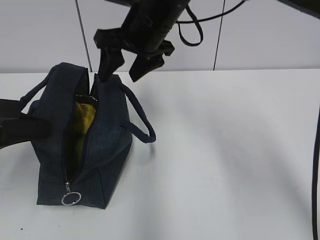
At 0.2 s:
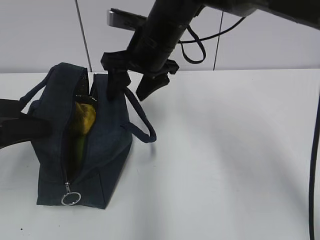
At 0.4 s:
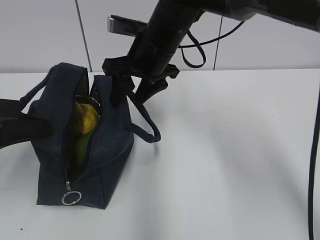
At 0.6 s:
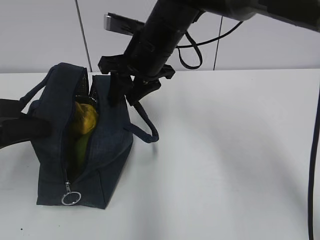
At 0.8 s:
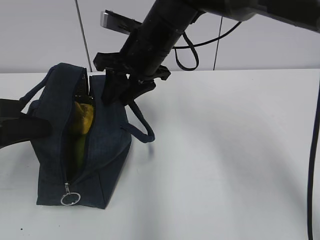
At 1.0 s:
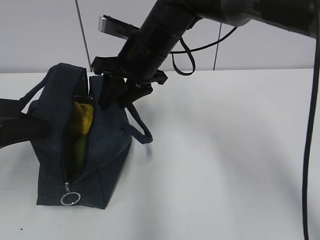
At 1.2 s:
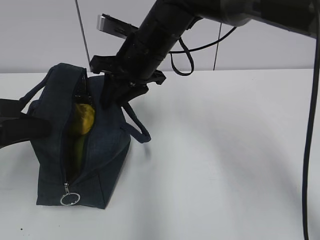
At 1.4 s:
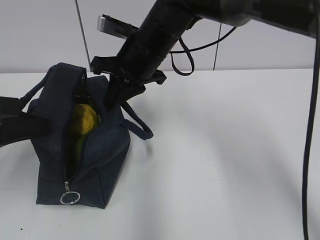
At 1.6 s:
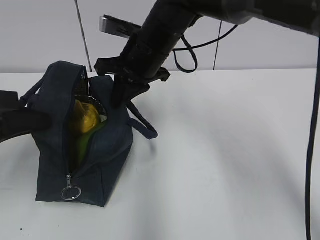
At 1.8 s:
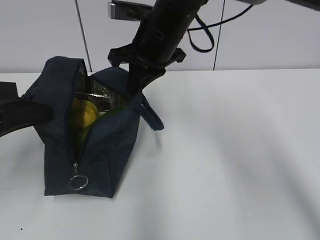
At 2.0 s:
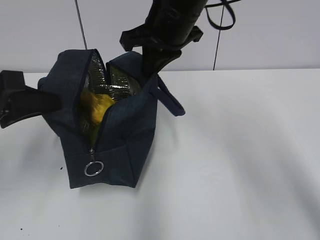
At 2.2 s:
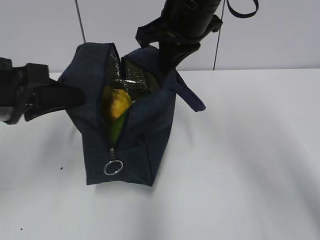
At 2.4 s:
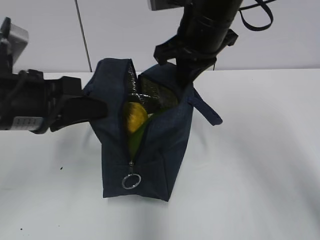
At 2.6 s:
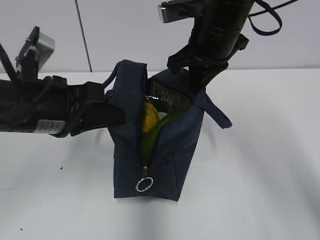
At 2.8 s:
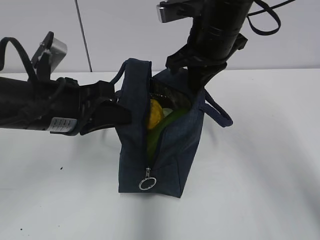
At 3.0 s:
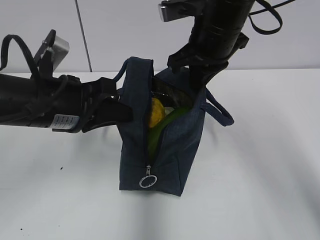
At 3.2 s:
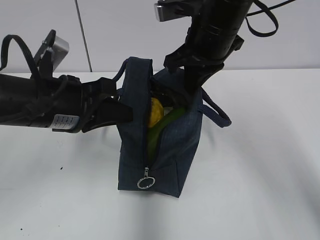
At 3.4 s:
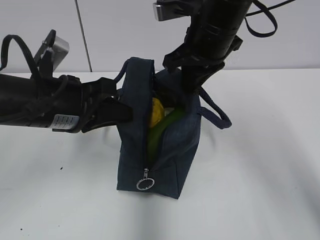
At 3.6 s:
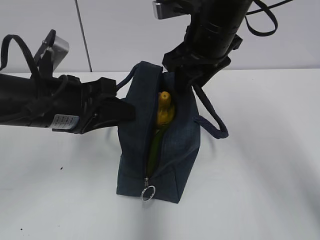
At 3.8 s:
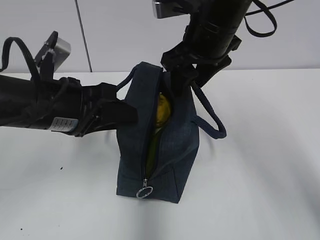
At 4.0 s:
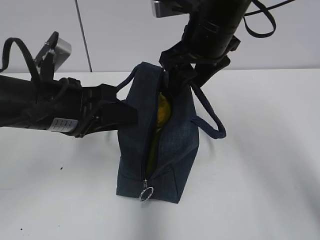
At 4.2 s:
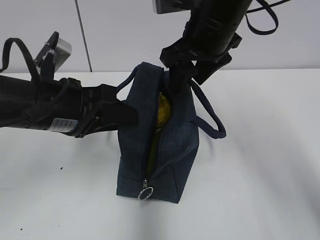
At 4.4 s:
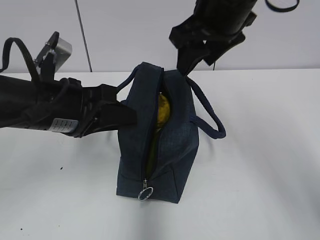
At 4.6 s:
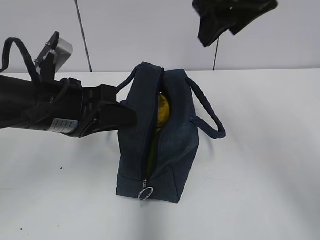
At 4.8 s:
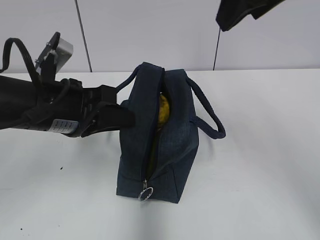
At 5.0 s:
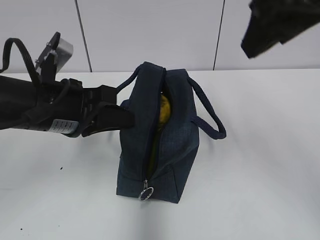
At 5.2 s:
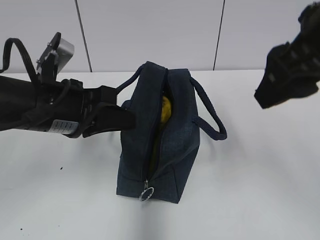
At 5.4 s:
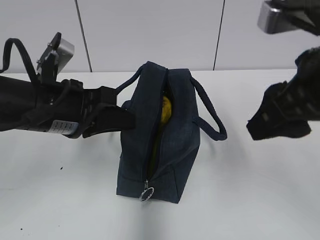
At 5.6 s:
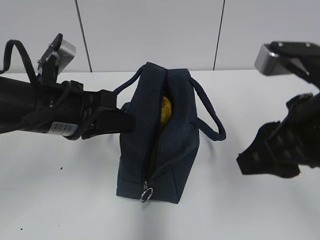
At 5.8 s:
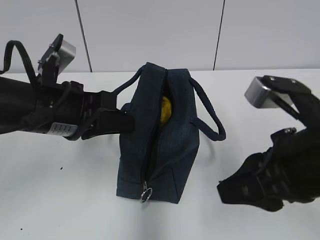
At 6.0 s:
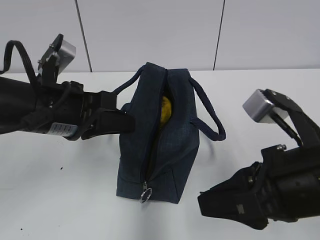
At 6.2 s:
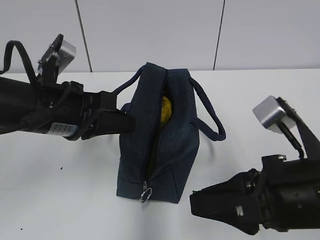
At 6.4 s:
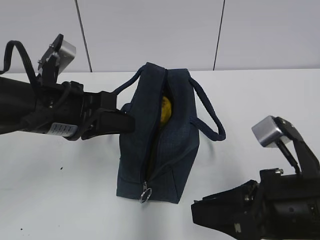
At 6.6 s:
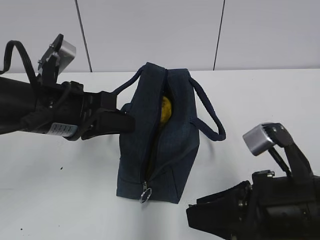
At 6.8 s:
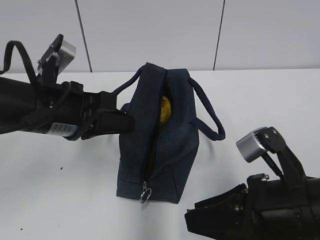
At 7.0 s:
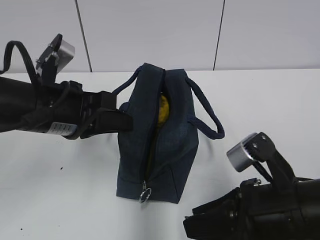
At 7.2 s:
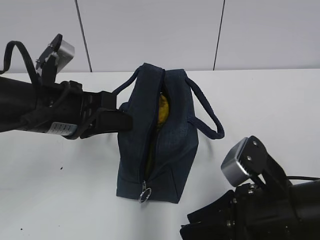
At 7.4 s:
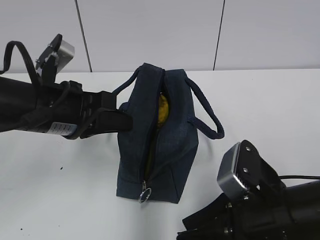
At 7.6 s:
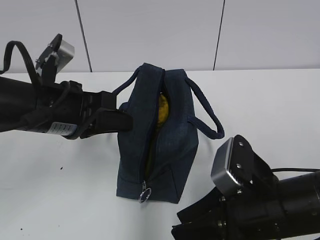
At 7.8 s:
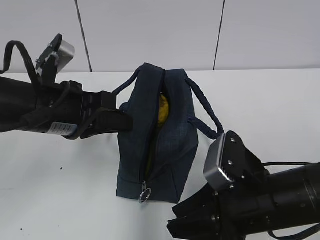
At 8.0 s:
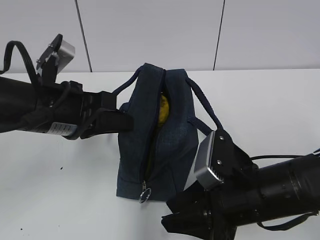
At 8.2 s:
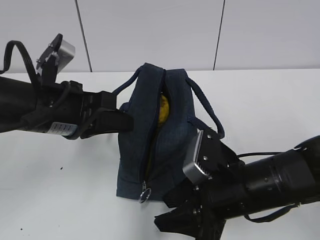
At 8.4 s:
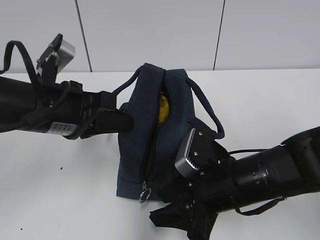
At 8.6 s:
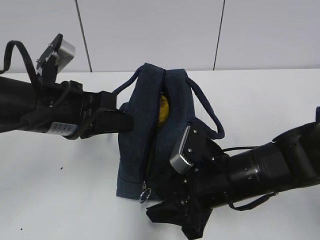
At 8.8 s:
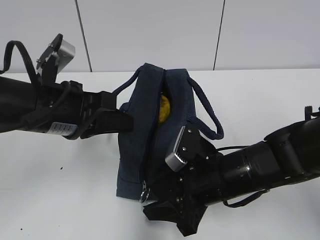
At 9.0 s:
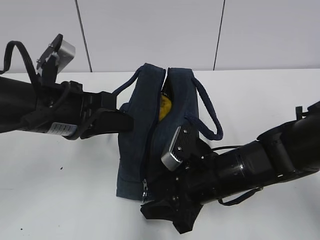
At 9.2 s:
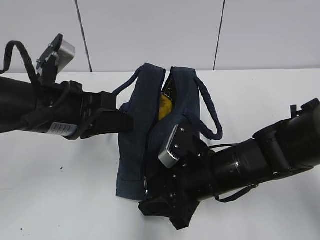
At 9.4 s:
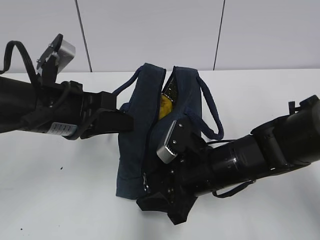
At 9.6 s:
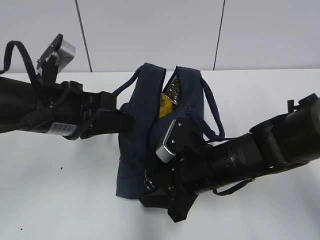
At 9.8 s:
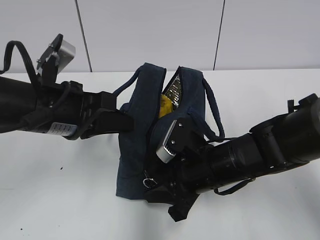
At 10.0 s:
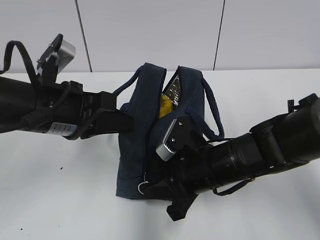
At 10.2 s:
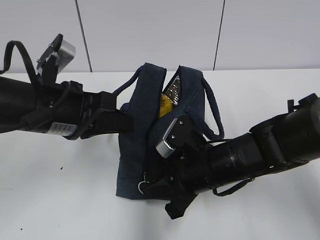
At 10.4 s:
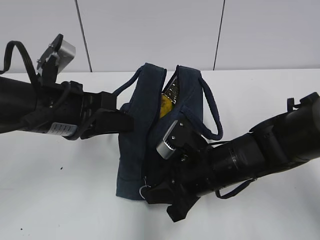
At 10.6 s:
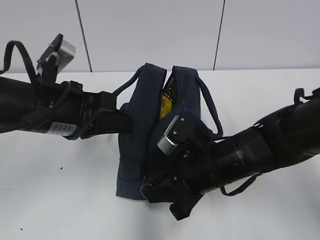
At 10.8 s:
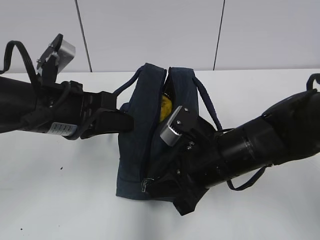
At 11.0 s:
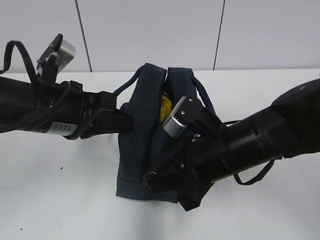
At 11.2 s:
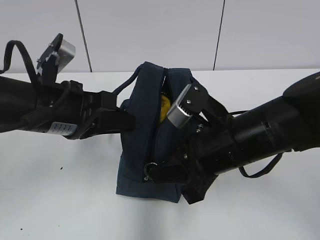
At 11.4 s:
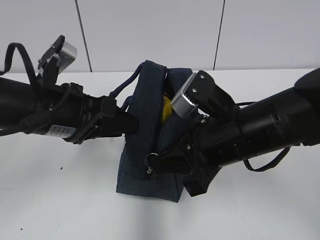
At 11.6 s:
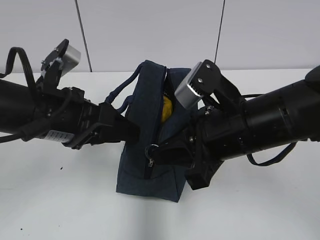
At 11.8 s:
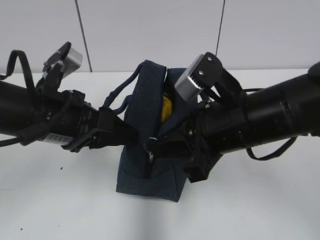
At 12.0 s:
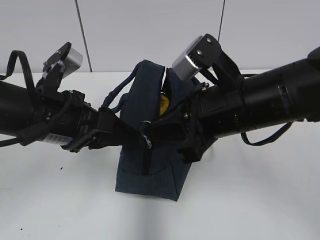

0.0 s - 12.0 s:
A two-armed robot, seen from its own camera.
0.0 s - 1.6 s: The right gripper closes up.
1.6 s - 3.0 s: The two grippers go approximately 10 cm to the right.
3.0 s - 4.4 s: The left gripper opens. Meanwhile the right gripper moves roughly 5 cm, and opens its fingers.
4.4 s - 6.0 s: The right gripper is displaced backward and downward by approximately 20 cm, and closes. Meanwhile the left gripper closes.
6.0 s - 7.6 s: The right gripper shifts approximately 10 cm downward.
7.6 s - 9.0 s: The right gripper is displaced forward by approximately 10 cm.
9.0 s - 10.4 s: The right gripper closes its fingers.
10.4 s - 12.0 s: The left gripper opens its fingers; the right gripper is displaced upward by approximately 15 cm.

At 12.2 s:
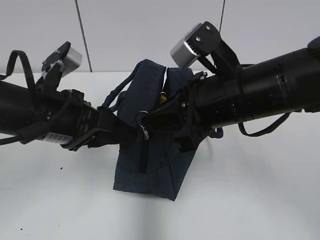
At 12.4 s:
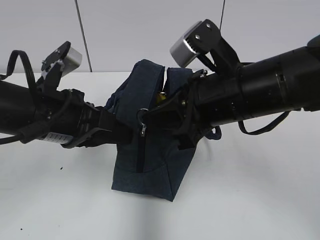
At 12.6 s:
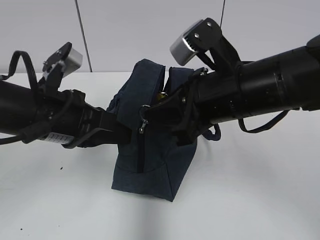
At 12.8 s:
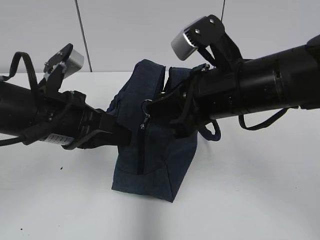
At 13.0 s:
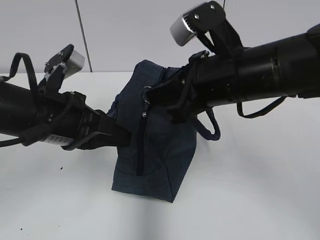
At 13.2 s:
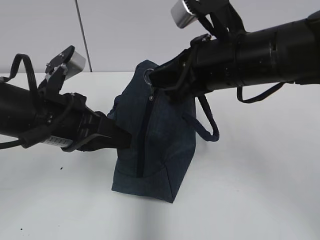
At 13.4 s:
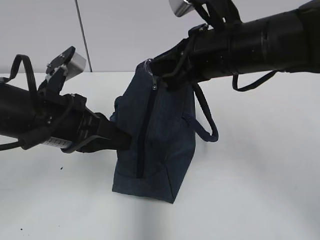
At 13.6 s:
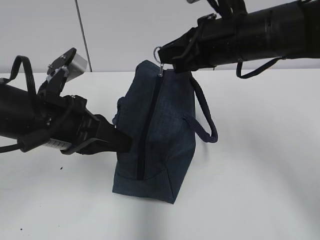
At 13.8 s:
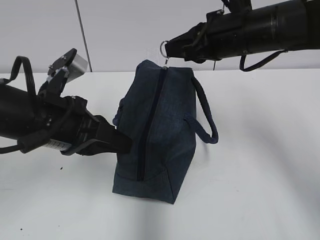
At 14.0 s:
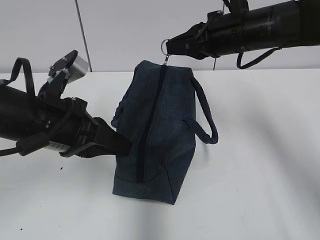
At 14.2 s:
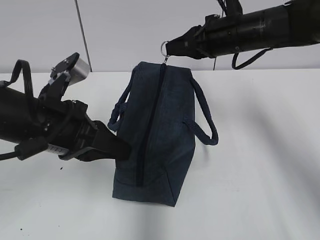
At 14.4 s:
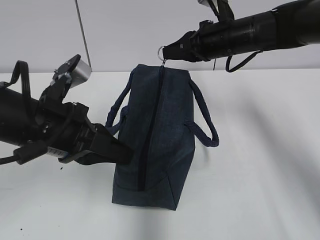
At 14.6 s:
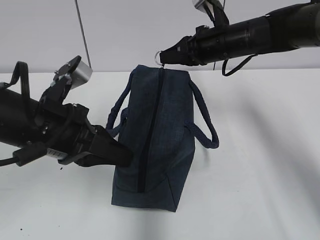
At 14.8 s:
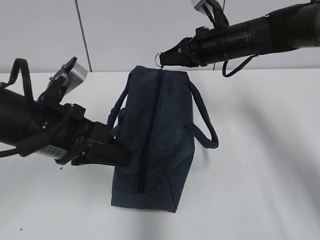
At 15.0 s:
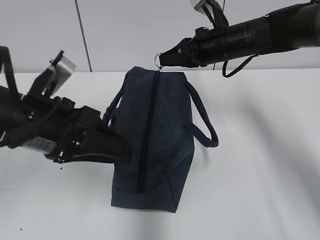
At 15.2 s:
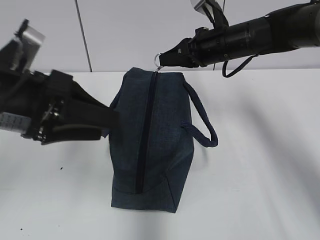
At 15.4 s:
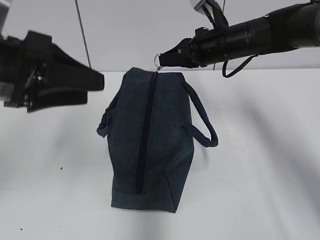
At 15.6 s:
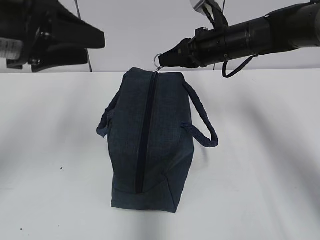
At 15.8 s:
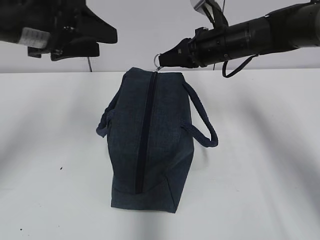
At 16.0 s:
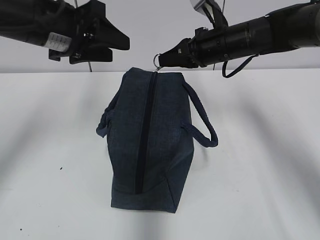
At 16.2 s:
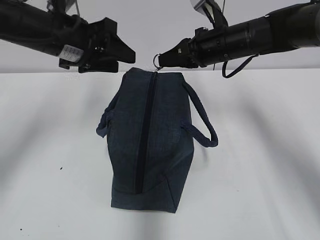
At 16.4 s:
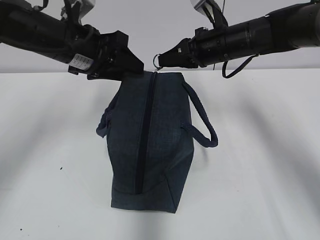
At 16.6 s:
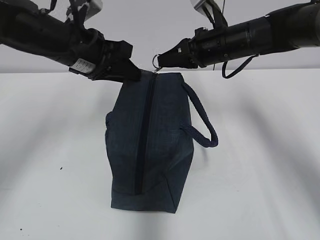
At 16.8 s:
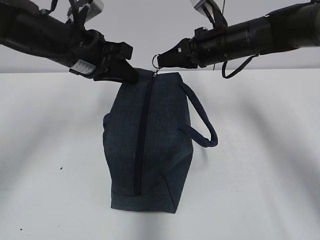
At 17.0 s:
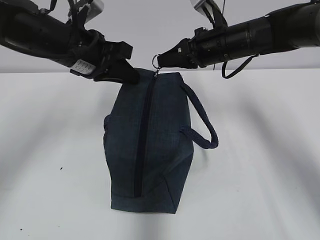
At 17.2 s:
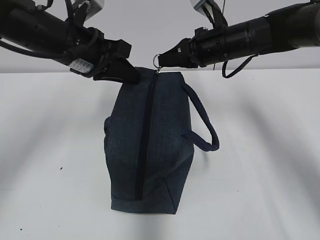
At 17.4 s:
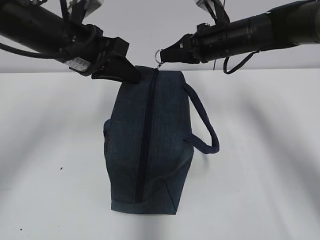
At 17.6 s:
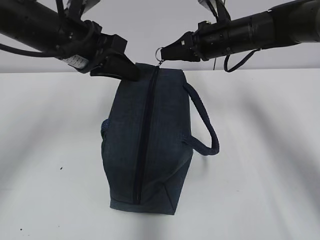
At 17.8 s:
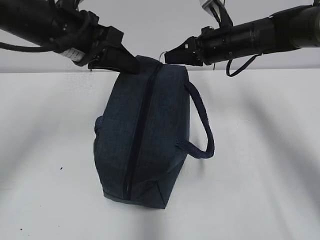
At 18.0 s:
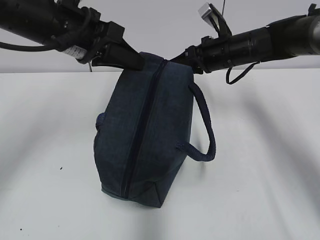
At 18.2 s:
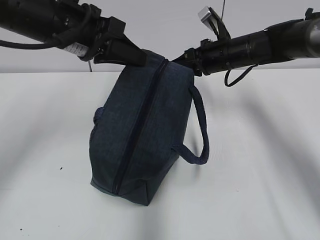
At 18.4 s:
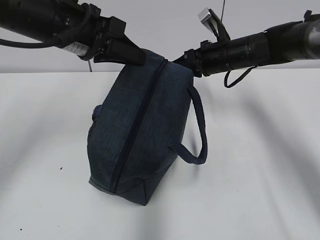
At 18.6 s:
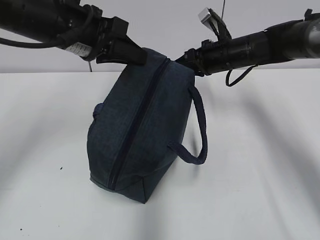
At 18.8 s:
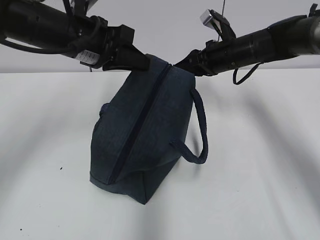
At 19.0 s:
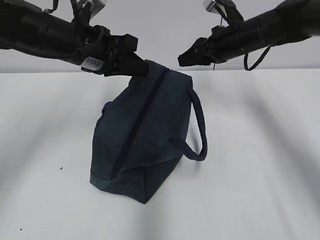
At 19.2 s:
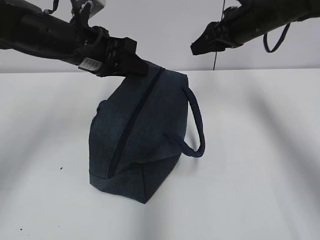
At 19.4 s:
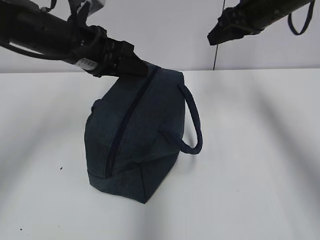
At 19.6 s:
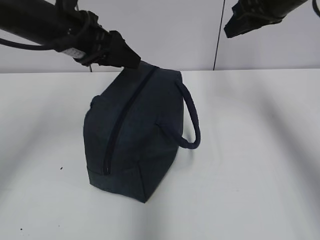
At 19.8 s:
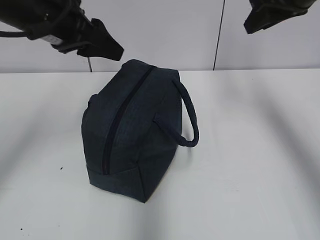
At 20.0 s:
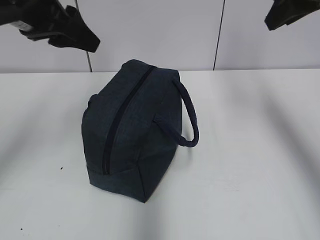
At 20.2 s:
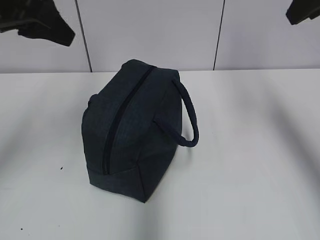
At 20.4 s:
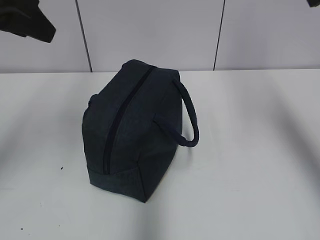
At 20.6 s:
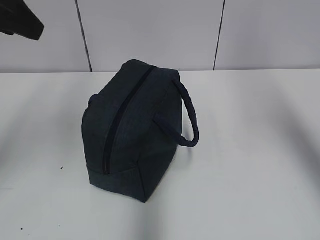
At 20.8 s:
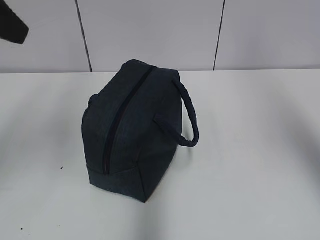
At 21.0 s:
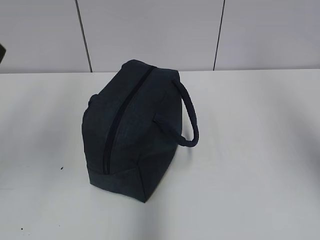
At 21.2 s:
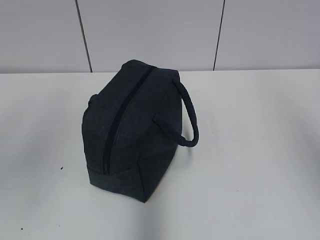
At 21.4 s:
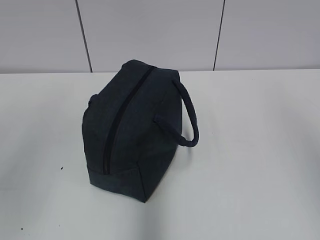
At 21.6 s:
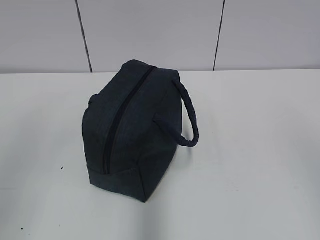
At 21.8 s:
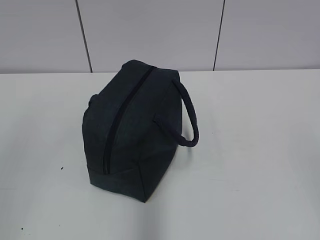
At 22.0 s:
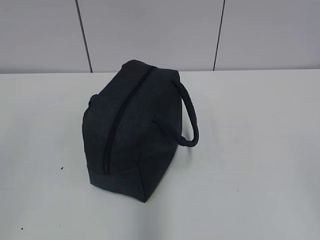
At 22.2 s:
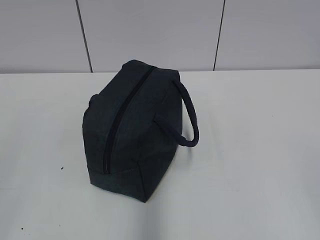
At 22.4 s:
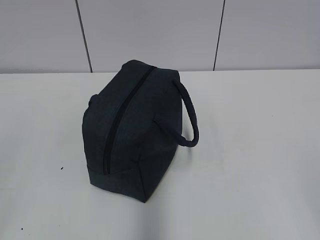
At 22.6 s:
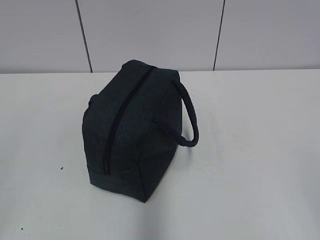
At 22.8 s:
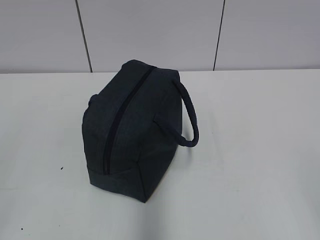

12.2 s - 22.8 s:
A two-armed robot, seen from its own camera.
12.2 s - 13.8 s: The left gripper closes up, while the right gripper travels forward by some 10 cm.
13.8 s - 15.2 s: The left gripper ends up roughly 5 cm from where it was, and opens its fingers, while the right gripper goes some 10 cm forward and downward.
15.2 s - 16.8 s: The left gripper shifts about 15 cm forward, and closes.
16.8 s - 18.2 s: The left gripper changes place by about 5 cm. Meanwhile the right gripper shifts by about 5 cm.
18.2 s - 19.8 s: The right gripper is displaced upward and backward by some 20 cm, and opens. Meanwhile the left gripper opens its fingers.
19.8 s - 21.2 s: The left gripper moves backward and to the left, about 20 cm, while the right gripper goes roughly 30 cm backward.
